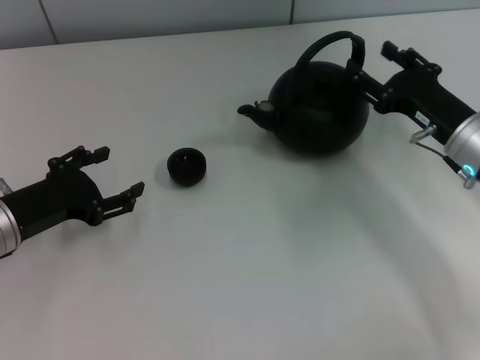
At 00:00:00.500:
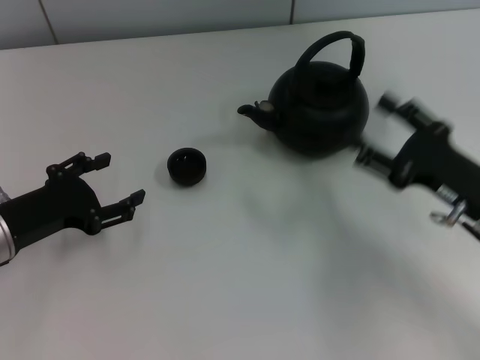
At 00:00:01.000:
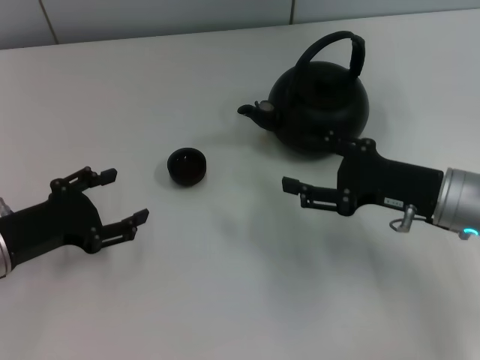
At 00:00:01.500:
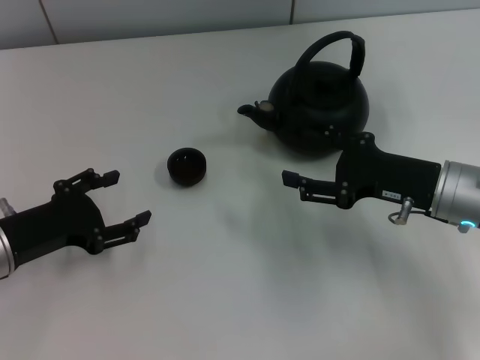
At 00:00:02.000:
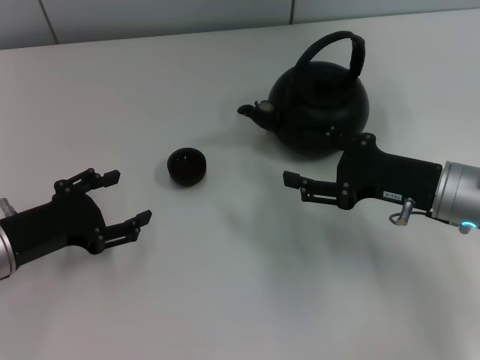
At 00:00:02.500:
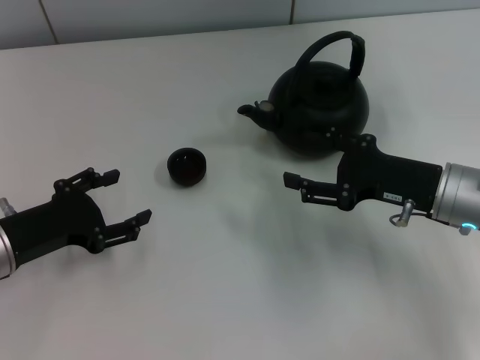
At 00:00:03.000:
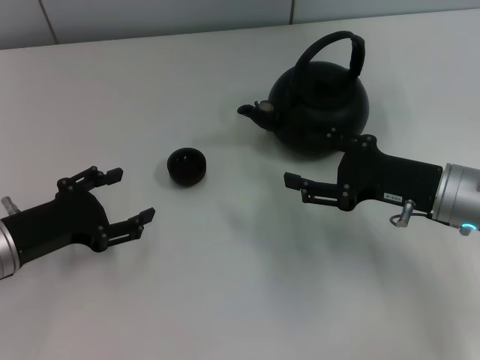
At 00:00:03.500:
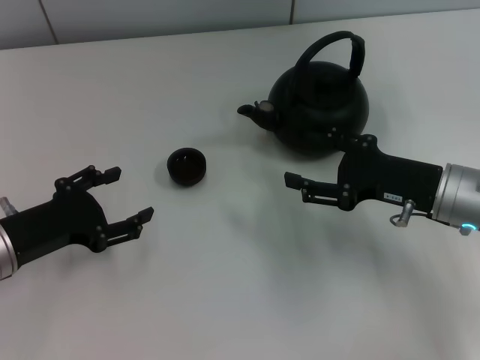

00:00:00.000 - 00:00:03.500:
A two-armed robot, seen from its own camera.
Task of the whole recording: Grasp the handle of the teapot with one hand and pour tea into the teacup.
00:00:02.000 - 00:00:03.500: The two grippers keep their place.

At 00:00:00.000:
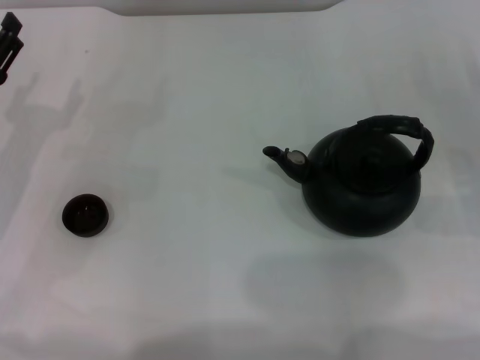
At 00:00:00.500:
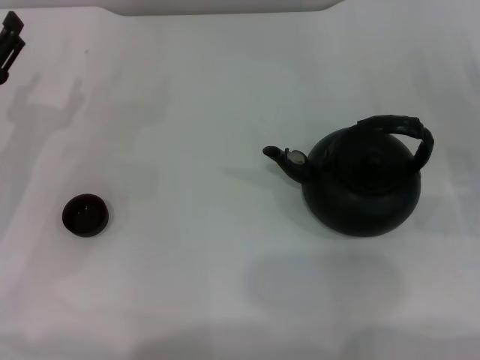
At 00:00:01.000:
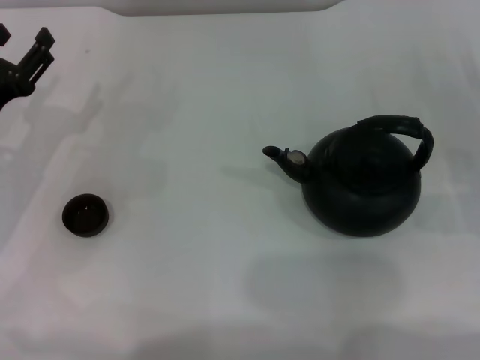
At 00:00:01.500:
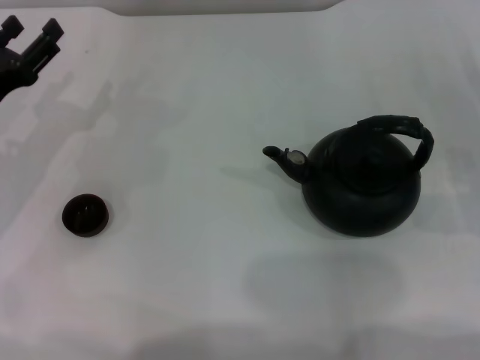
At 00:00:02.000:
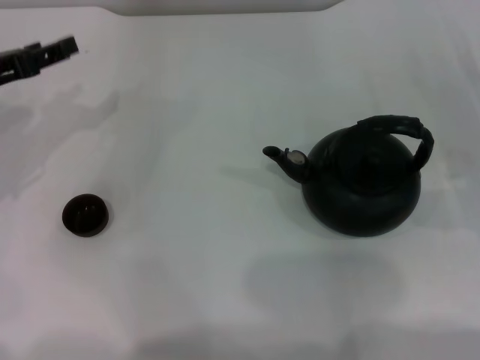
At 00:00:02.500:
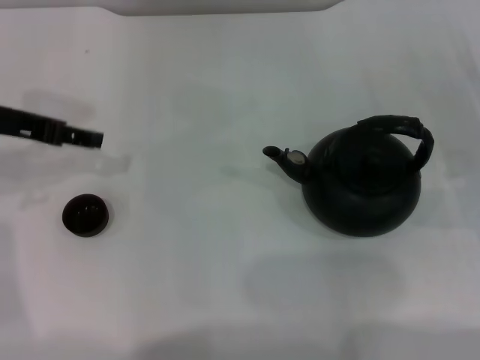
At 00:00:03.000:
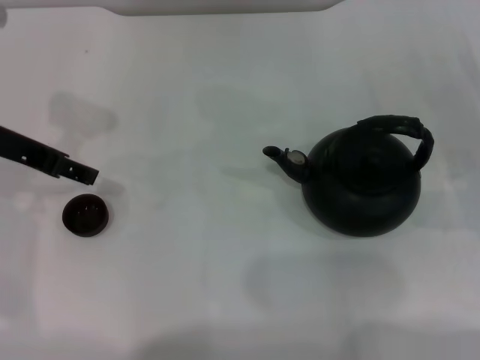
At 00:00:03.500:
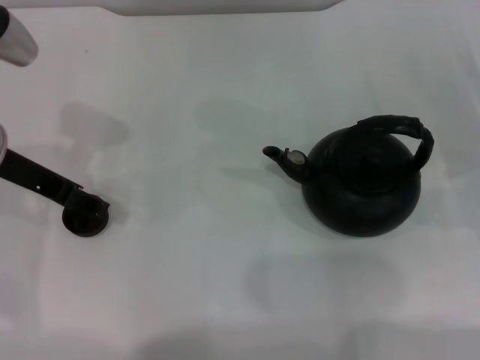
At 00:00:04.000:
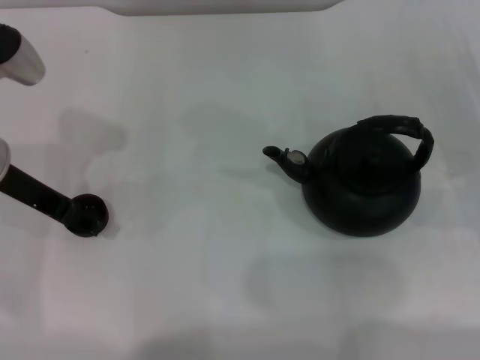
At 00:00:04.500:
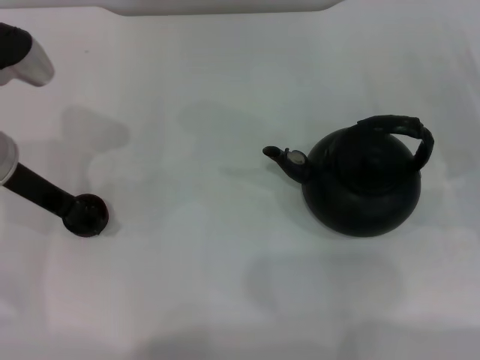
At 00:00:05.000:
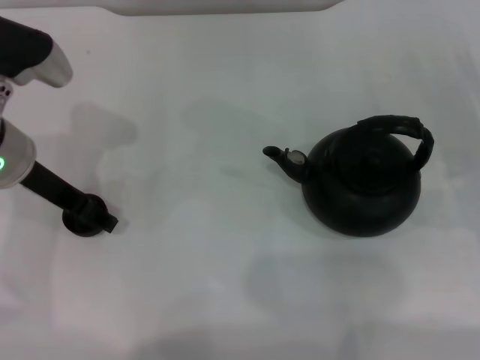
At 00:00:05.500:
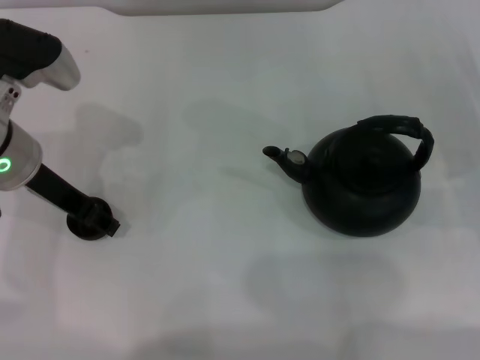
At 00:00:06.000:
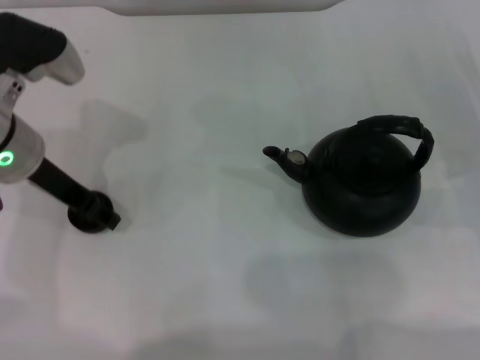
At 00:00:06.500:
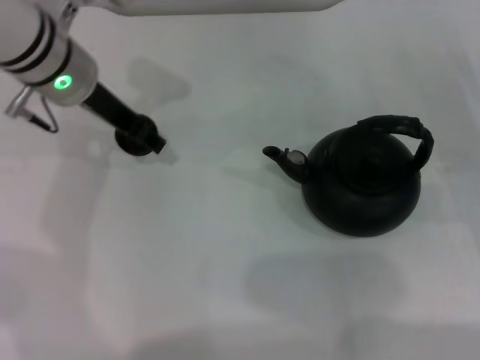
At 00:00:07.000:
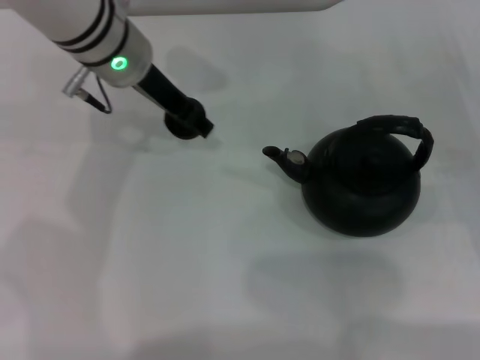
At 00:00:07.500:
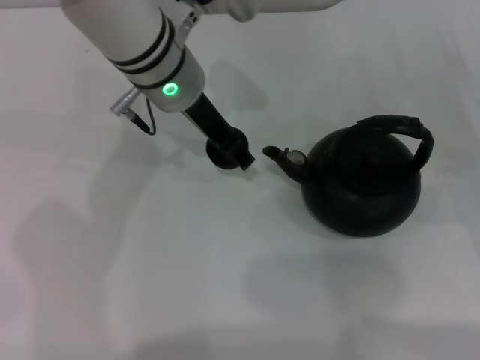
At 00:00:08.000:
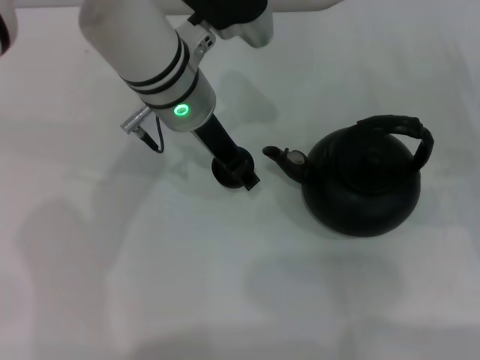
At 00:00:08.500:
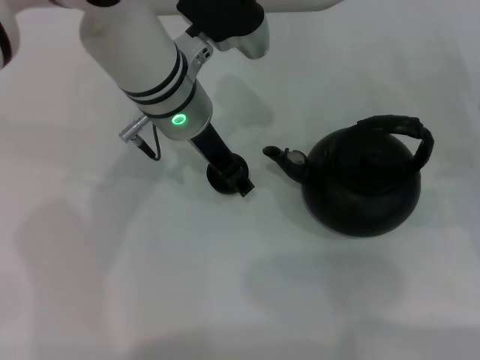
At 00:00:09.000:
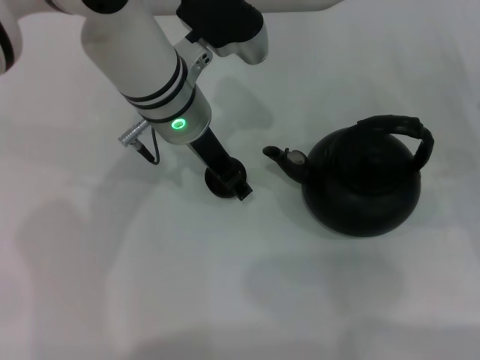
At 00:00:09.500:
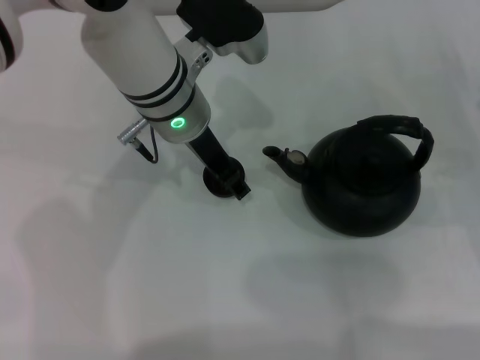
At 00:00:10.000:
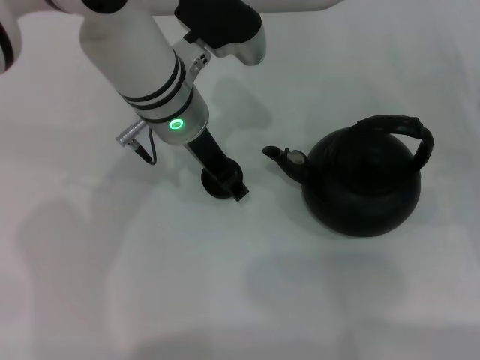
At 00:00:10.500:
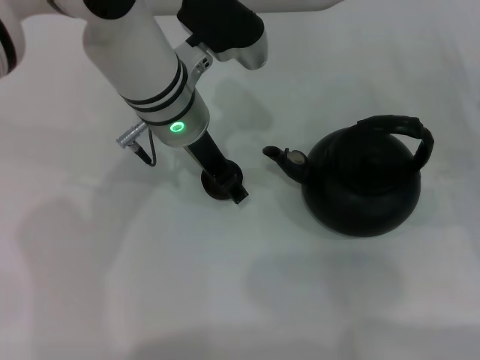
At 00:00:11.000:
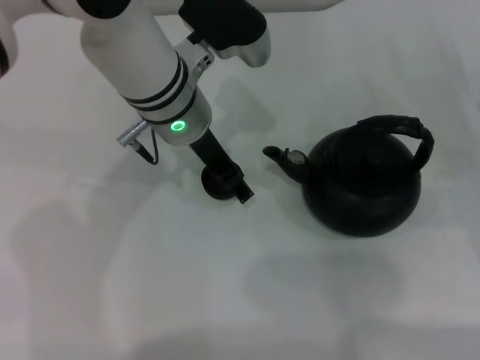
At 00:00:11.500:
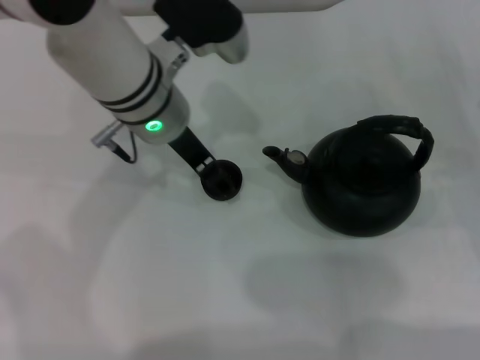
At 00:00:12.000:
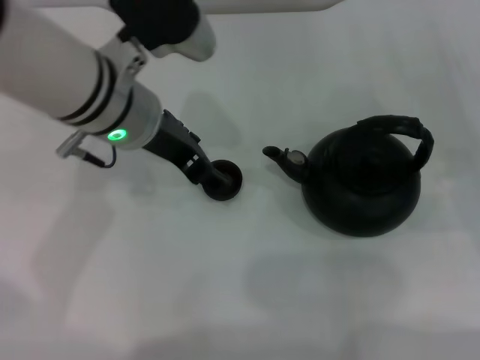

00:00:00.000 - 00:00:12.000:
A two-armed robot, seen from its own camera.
Task of the whole recording: Grasp the handle of the teapot with one hand and pour tea into the teacup.
Step, 00:00:00.000 - 00:00:06.000: Pick up the teacup with the left gripper.
Step, 00:00:06.500 - 00:00:11.500: Place the teacup in the center of view with the left gripper.
00:00:00.000 - 00:00:02.000: The left gripper heads upward, covering about 5 cm.
00:00:02.000 - 00:00:04.000: The left gripper is displaced to the right by approximately 5 cm, and opens.
00:00:04.000 - 00:00:06.000: The left gripper closes up.
00:00:06.000 - 00:00:08.000: The left gripper is displaced to the right by approximately 15 cm.
00:00:08.000 - 00:00:10.000: The left gripper opens up.
00:00:10.000 - 00:00:12.000: The left gripper moves roughly 5 cm, and opens up.

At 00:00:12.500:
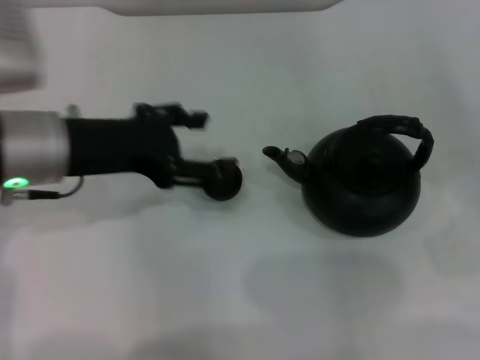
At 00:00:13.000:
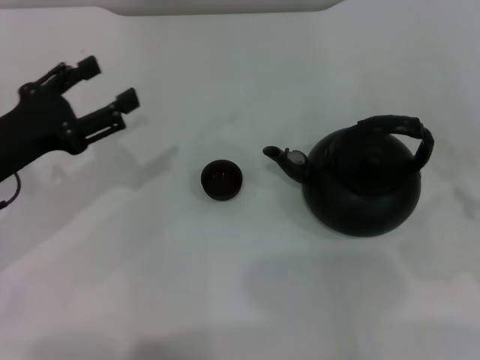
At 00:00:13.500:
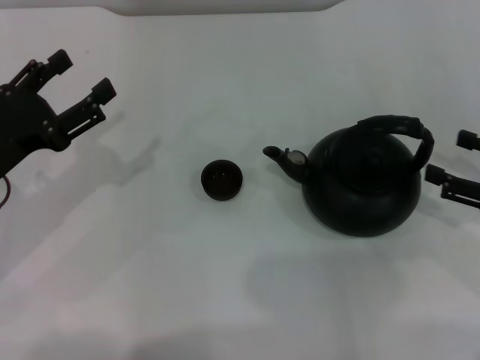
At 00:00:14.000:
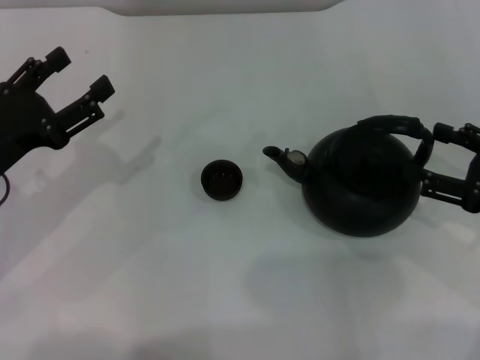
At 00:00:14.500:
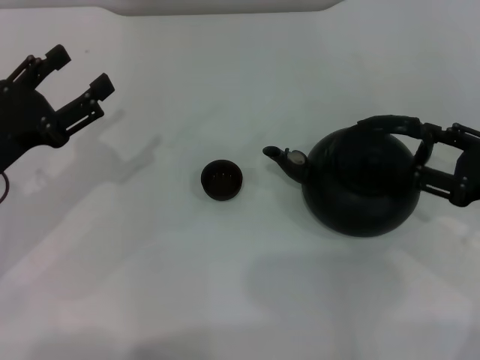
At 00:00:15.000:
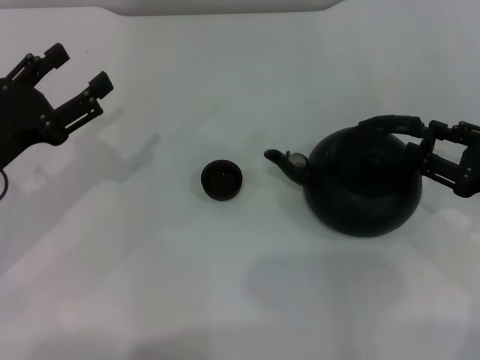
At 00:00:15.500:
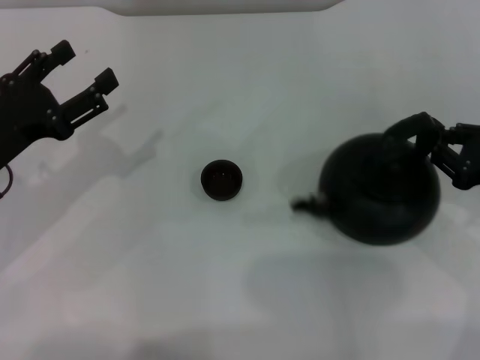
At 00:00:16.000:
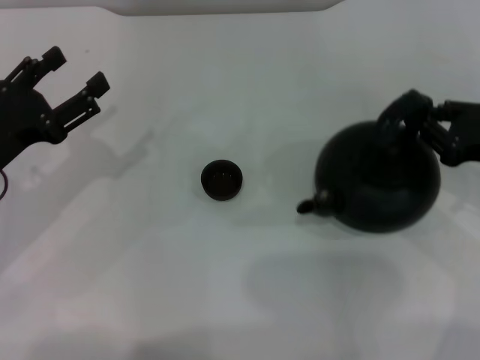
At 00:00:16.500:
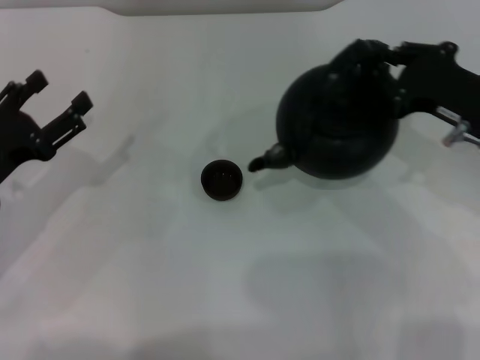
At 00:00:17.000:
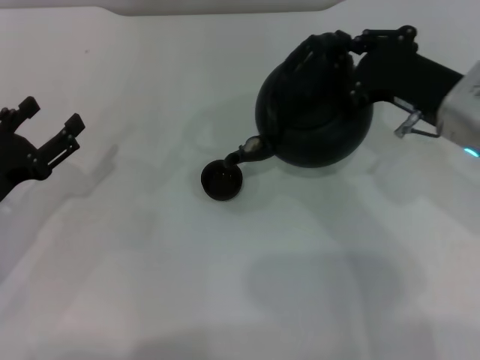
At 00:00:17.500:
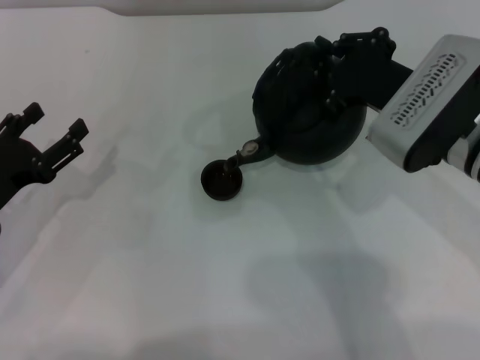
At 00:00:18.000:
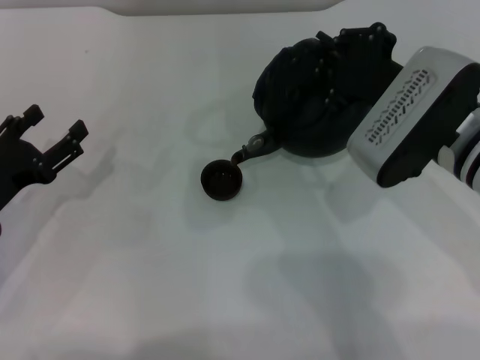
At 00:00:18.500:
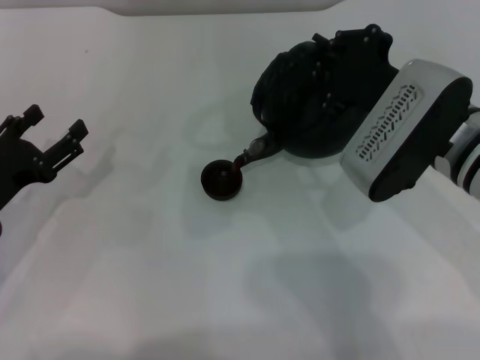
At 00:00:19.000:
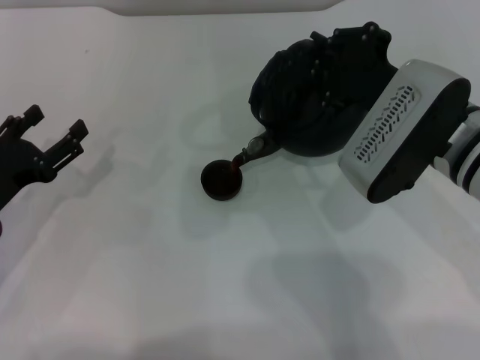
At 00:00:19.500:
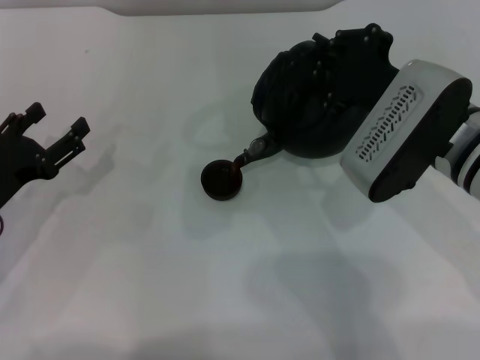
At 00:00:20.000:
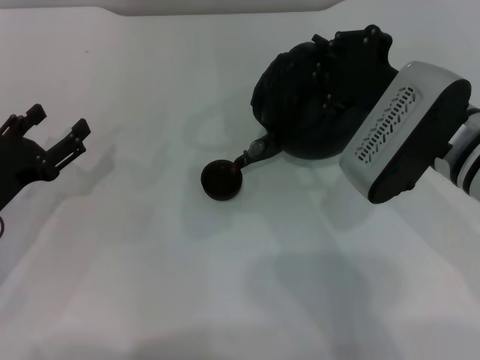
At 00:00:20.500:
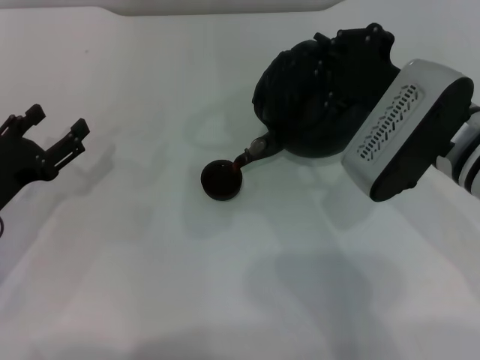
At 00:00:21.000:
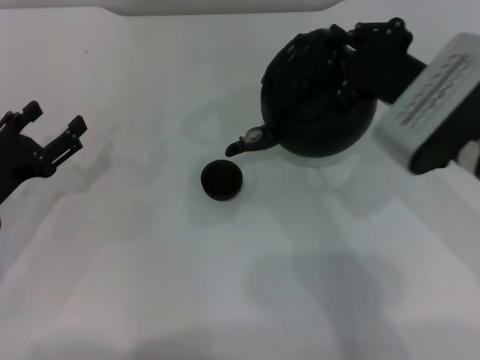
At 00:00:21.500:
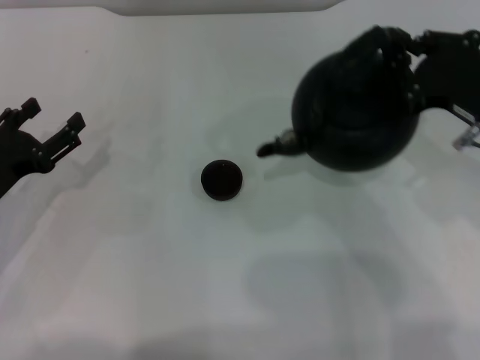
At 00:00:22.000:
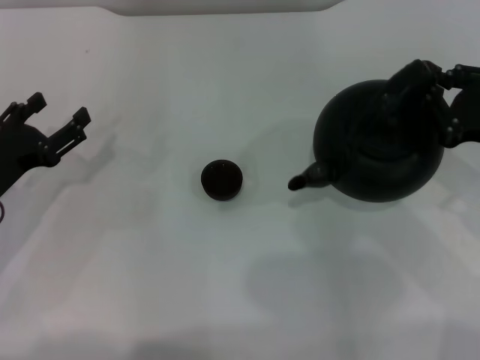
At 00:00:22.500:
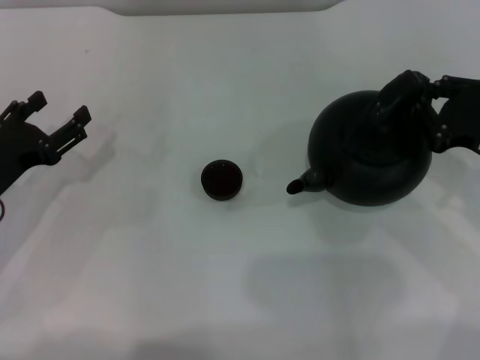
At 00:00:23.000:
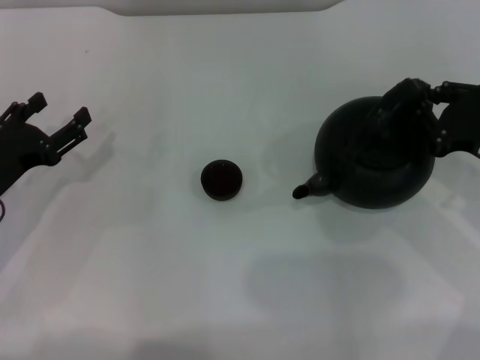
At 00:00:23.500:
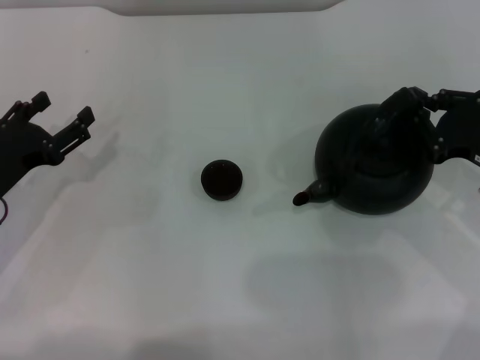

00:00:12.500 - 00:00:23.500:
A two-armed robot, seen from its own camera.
Task of the whole recording: Grasp the handle of the teapot with one hand and pour tea into the teacup.
Step, 00:00:12.500 - 00:00:16.000: Pick up the teapot with the right gripper.
Step, 00:00:16.500 - 00:00:21.000: Pour tea into the teacup with the right gripper.
00:00:12.500 - 00:00:14.500: The right gripper moves to the left, about 5 cm, while the left gripper heads to the left and downward, covering about 10 cm.
00:00:14.500 - 00:00:16.000: The right gripper closes up.
00:00:16.000 - 00:00:18.000: The right gripper travels to the left by some 15 cm; the left gripper ends up about 5 cm from where it was.
00:00:18.000 - 00:00:20.000: The grippers move only a little.
00:00:20.000 - 00:00:21.500: The right gripper shifts approximately 10 cm to the right.
00:00:21.500 - 00:00:23.500: The right gripper heads downward and to the right, covering approximately 10 cm.
